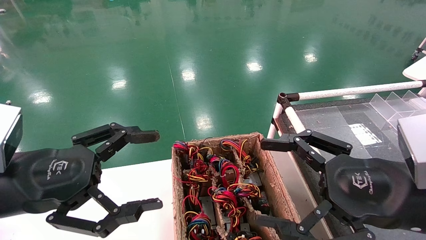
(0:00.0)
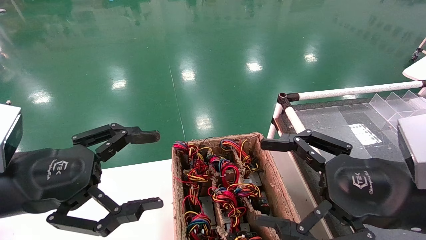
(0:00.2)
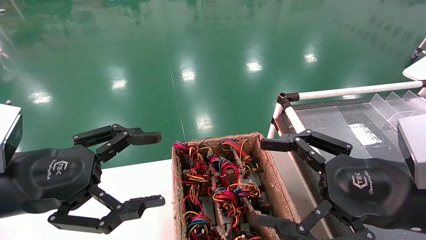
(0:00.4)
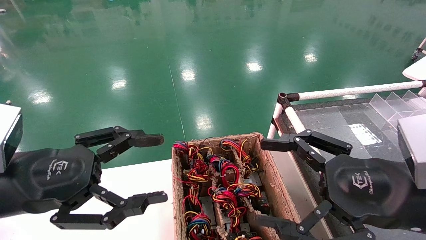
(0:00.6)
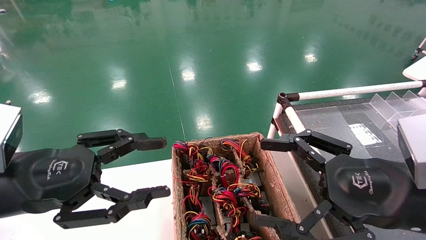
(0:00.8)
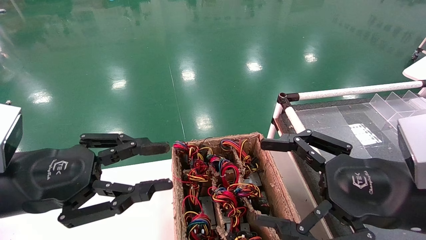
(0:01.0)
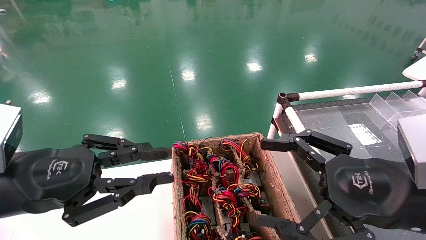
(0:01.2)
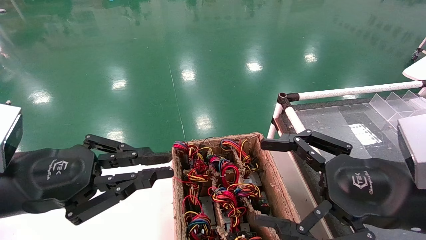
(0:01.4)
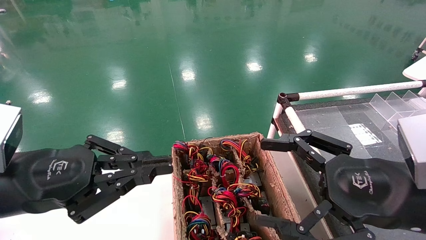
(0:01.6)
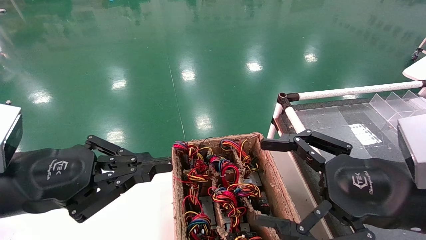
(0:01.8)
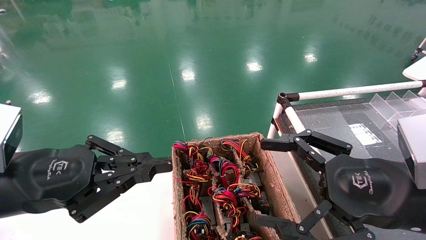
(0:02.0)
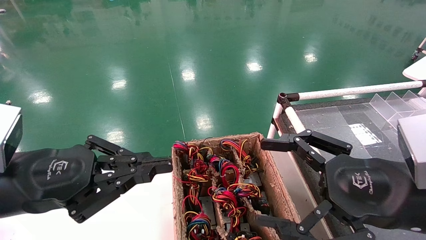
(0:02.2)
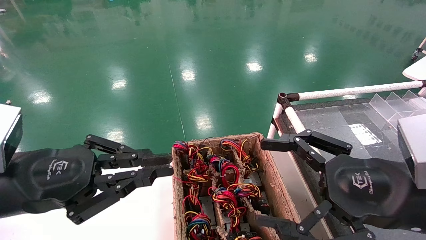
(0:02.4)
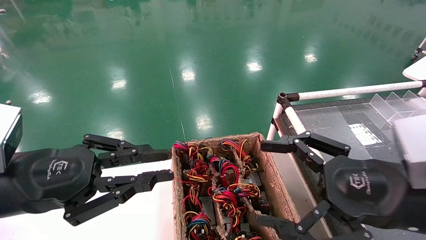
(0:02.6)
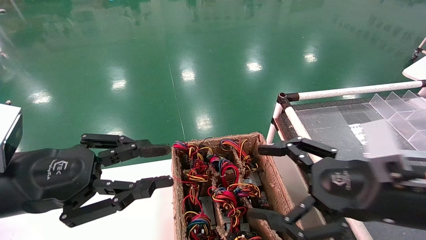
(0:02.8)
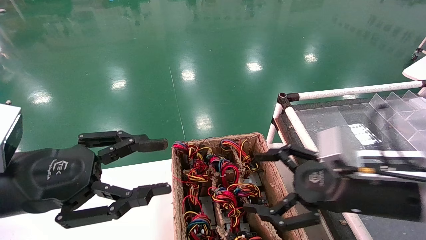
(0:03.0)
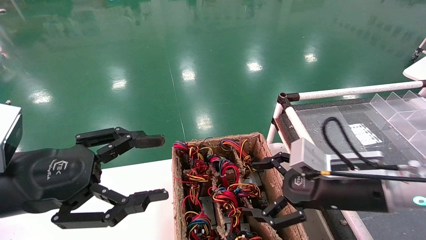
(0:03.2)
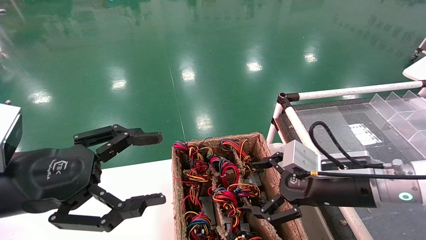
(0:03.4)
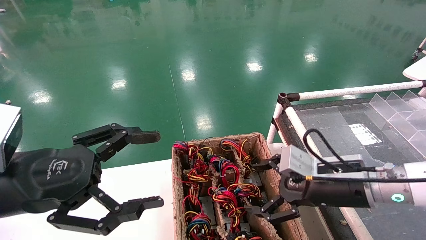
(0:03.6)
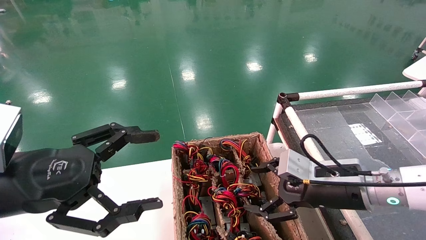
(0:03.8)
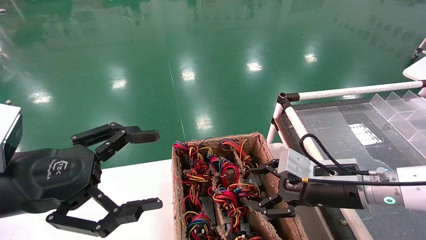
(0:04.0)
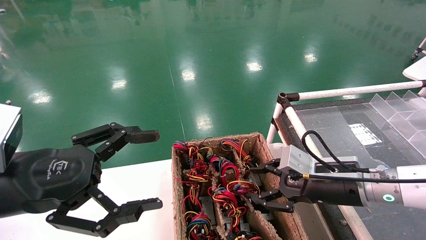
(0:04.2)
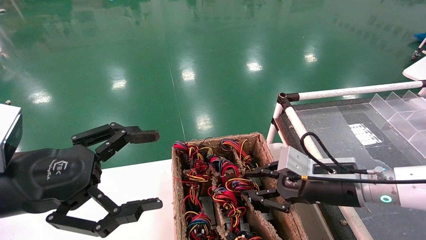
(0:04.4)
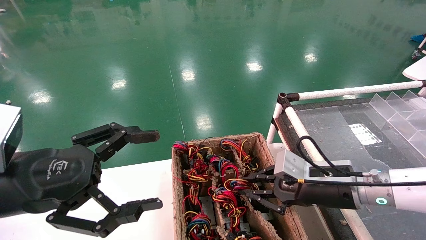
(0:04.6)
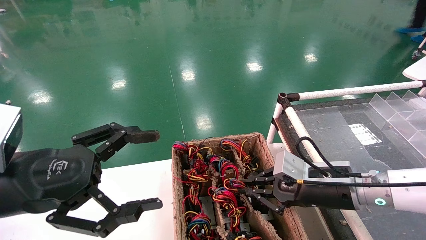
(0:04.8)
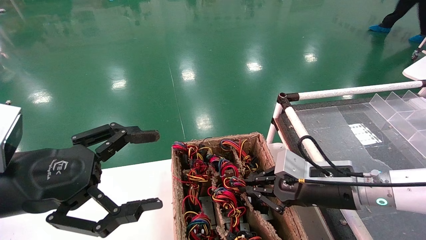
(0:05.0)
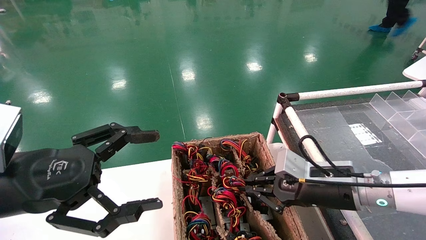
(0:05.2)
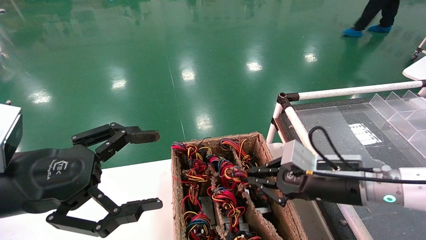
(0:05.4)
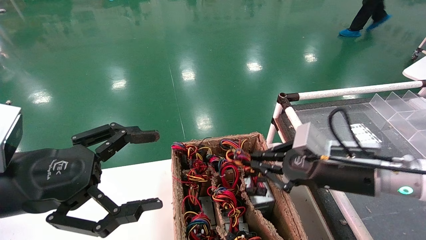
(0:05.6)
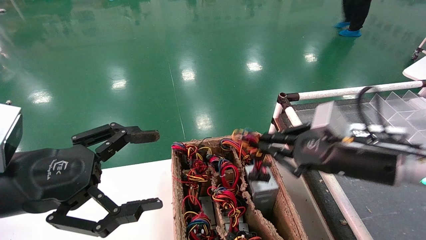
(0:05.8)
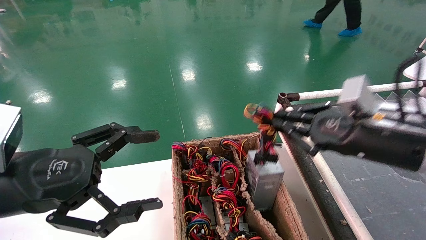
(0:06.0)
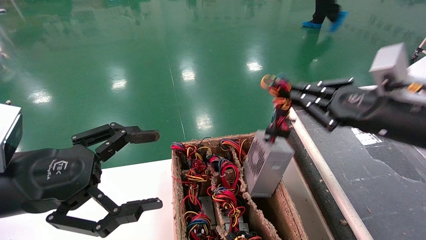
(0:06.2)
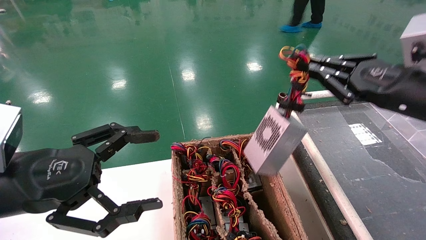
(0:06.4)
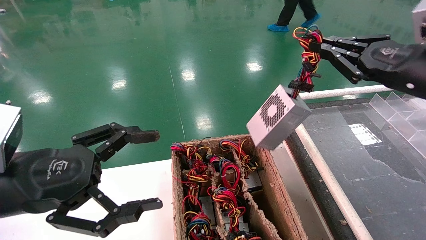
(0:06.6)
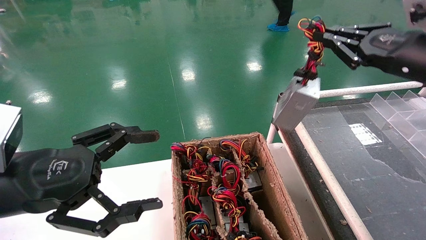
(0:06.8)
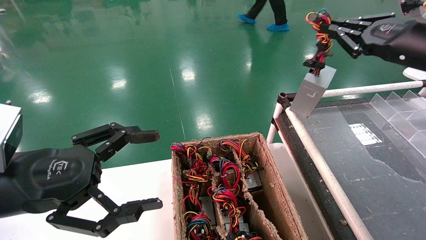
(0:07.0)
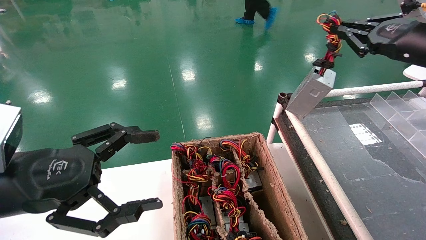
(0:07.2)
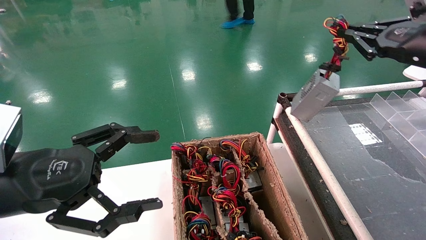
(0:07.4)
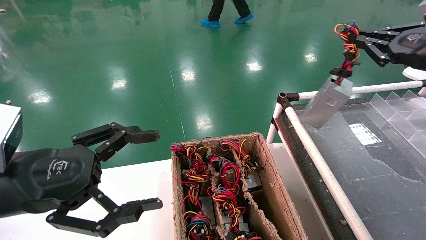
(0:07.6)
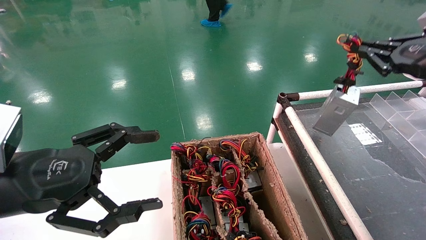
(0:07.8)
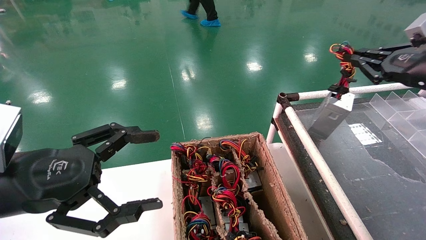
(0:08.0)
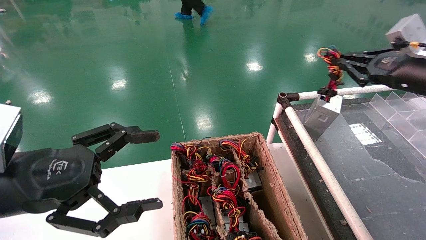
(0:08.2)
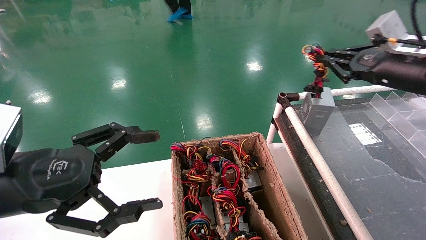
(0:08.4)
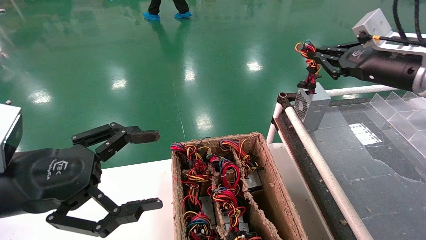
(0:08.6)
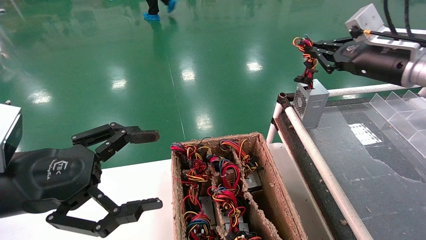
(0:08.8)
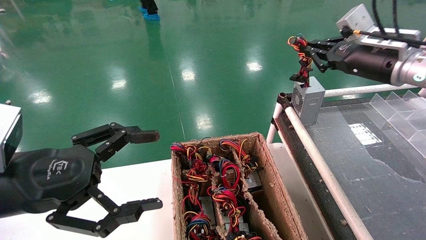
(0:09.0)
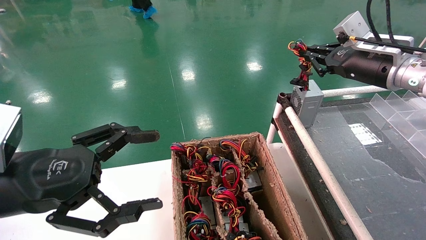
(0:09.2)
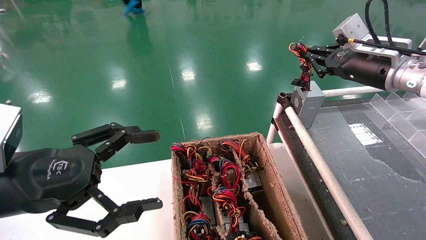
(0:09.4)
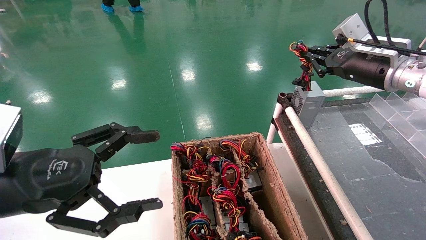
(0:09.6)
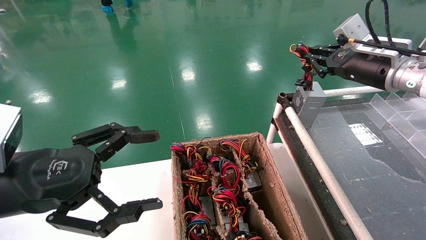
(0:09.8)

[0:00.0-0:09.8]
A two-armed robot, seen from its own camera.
Step, 0:01.8 to 0:04.8: Grab and lift the power supply from the large box.
0:00.0 to 0:01.4: The left gripper closes its fingers.
0:01.4 to 0:02.8: There are only small adjustments of the grippers.
0:02.8 to 0:04.2: The right gripper heads forward and downward, covering about 10 cm, and closes its fingers. The left gripper opens its fingers.
0:04.2 to 0:05.6: The right gripper closes its fingers.
0:05.6 to 0:07.0: The right gripper is displaced upward and to the right by roughly 20 cm.
0:07.0 to 0:08.4: The grippers make only small movements.
0:08.4 to 0:09.8: The right gripper moves about 5 cm.

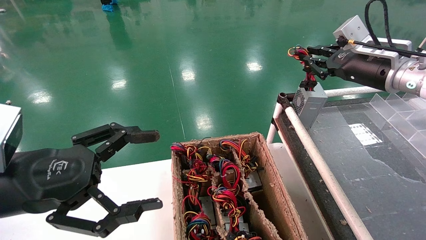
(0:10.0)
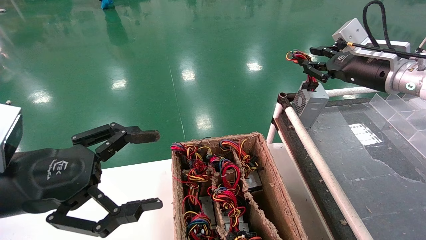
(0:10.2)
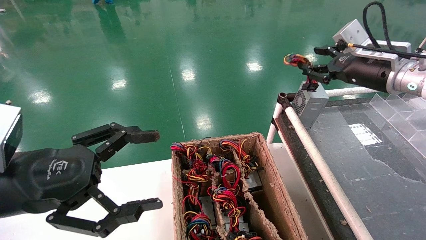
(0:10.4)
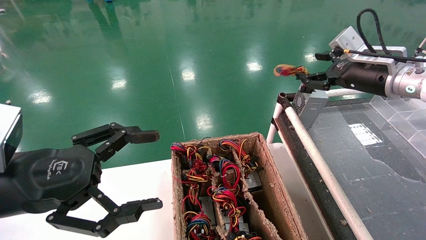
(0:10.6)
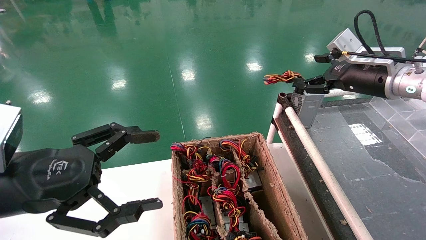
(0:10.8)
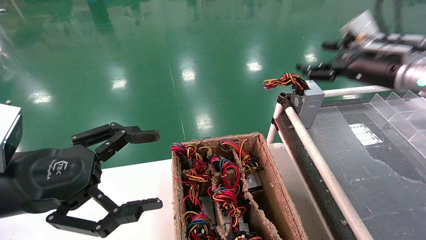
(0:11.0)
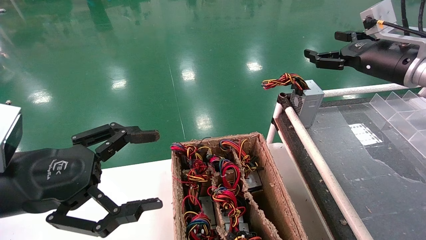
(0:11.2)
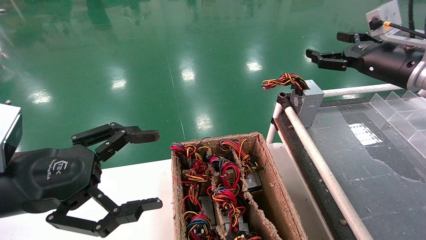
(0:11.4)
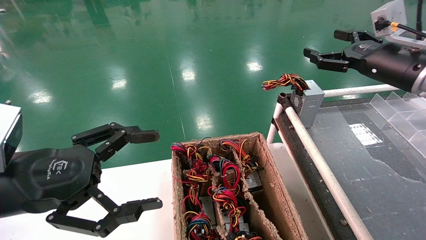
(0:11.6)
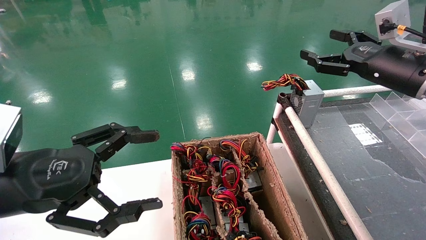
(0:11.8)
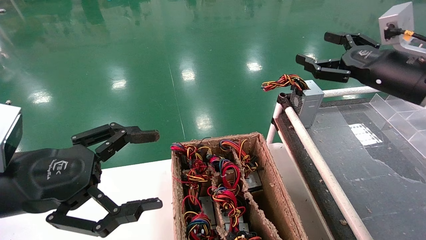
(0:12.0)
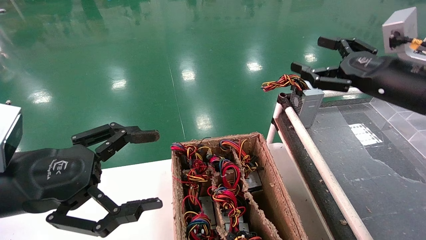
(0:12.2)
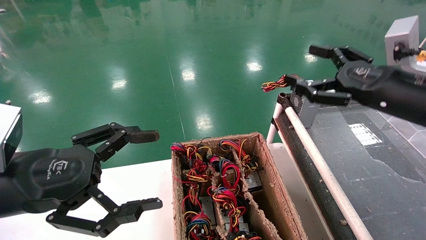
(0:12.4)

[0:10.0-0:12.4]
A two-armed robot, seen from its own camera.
0:10.0 to 0:11.2: The right gripper opens.
0:11.2 to 0:12.4: The right gripper goes about 10 cm backward.
